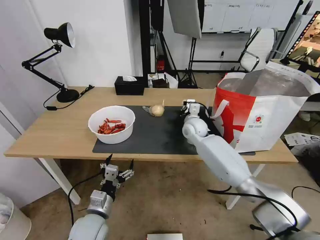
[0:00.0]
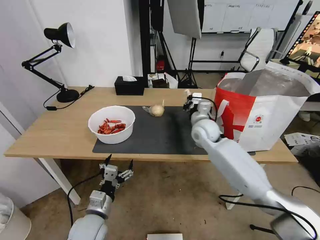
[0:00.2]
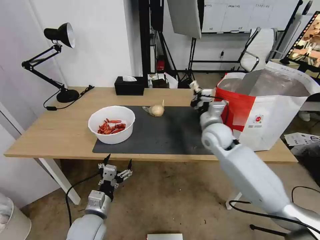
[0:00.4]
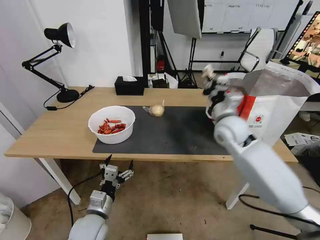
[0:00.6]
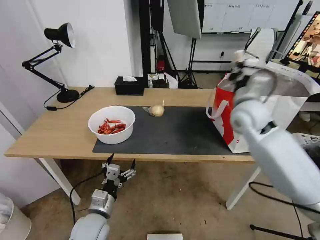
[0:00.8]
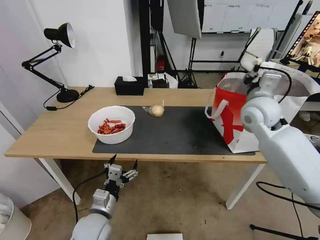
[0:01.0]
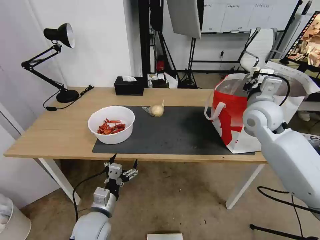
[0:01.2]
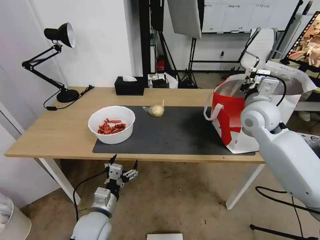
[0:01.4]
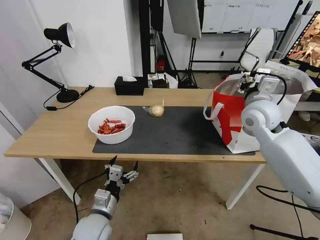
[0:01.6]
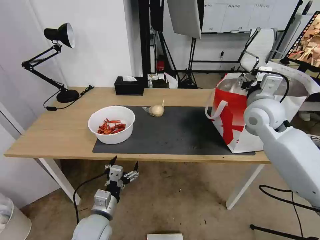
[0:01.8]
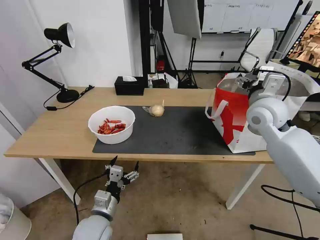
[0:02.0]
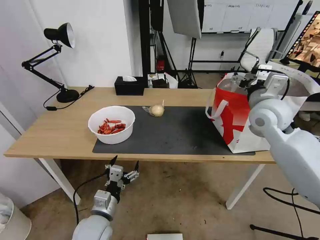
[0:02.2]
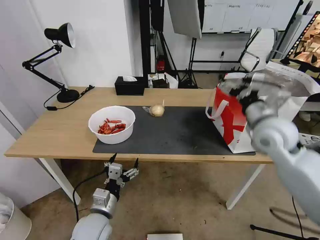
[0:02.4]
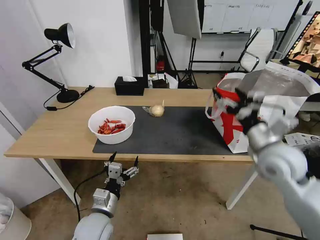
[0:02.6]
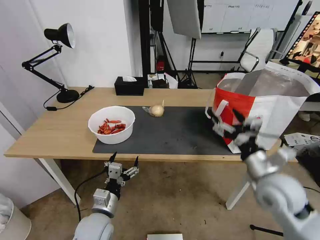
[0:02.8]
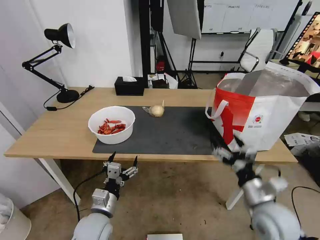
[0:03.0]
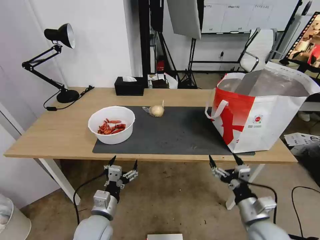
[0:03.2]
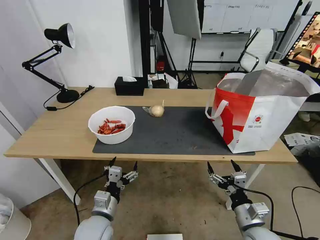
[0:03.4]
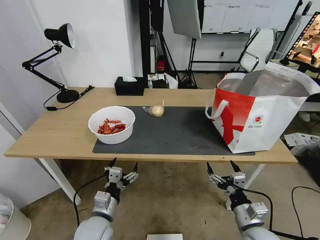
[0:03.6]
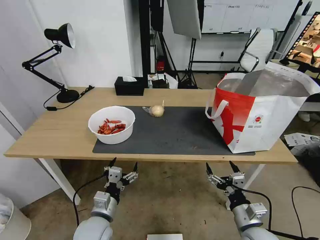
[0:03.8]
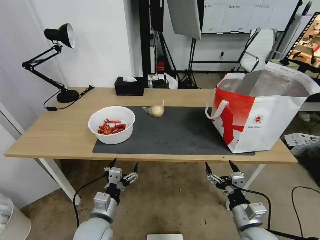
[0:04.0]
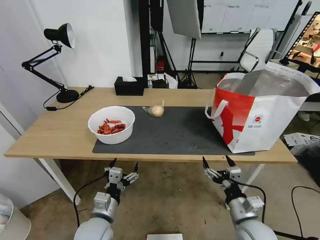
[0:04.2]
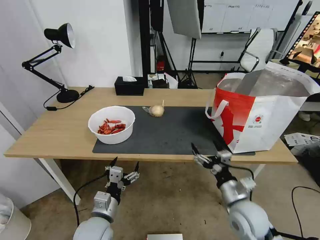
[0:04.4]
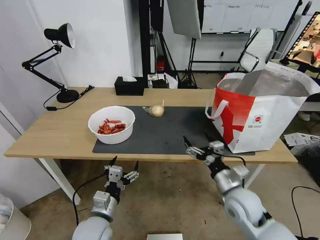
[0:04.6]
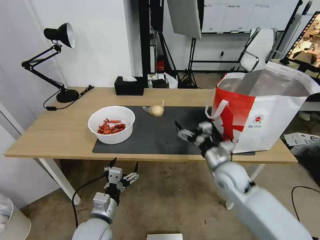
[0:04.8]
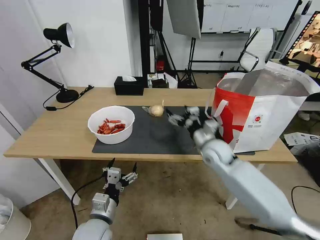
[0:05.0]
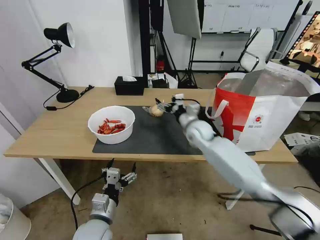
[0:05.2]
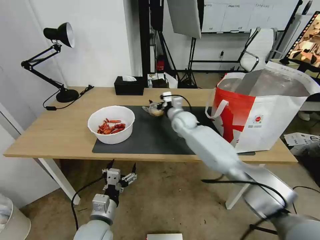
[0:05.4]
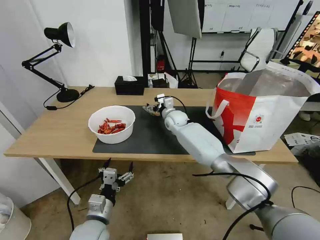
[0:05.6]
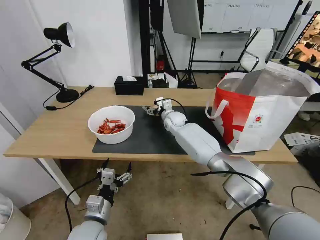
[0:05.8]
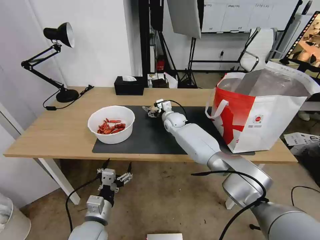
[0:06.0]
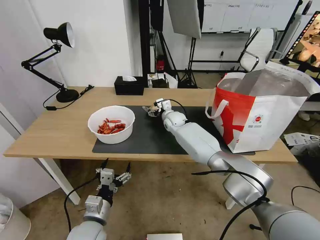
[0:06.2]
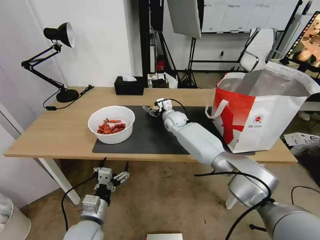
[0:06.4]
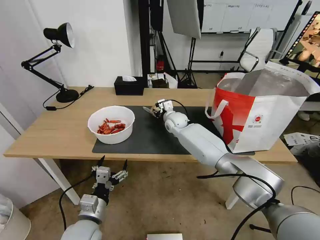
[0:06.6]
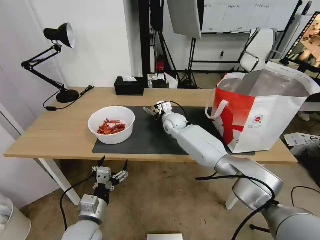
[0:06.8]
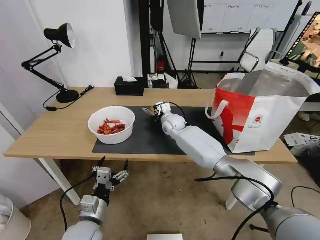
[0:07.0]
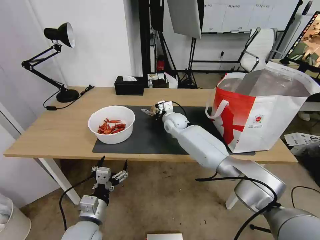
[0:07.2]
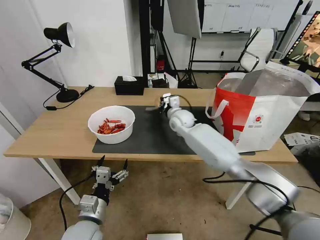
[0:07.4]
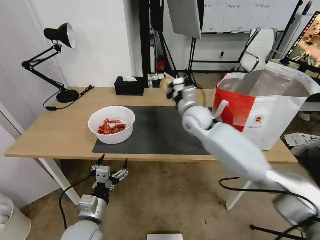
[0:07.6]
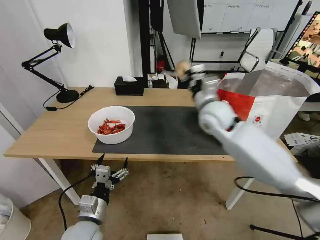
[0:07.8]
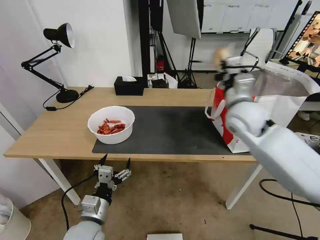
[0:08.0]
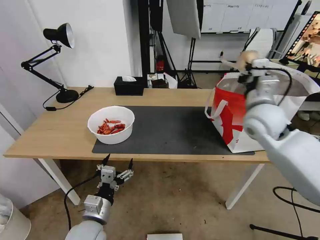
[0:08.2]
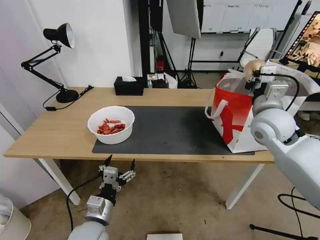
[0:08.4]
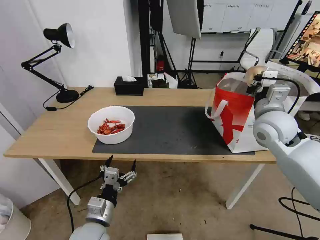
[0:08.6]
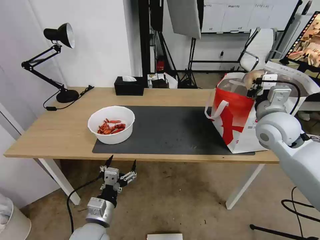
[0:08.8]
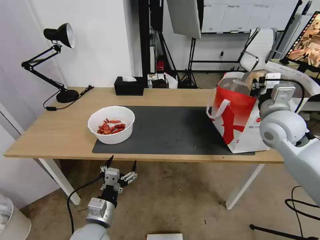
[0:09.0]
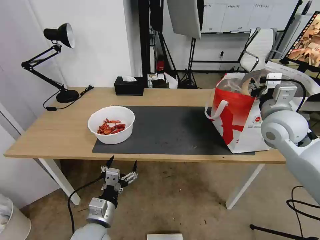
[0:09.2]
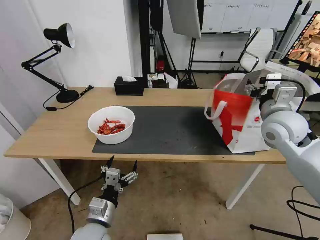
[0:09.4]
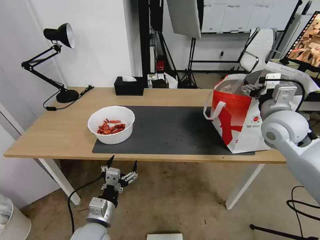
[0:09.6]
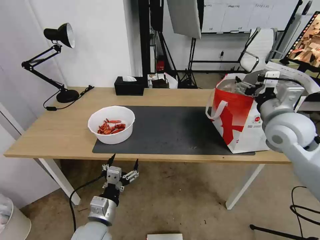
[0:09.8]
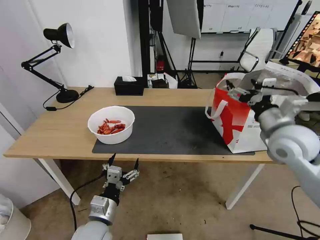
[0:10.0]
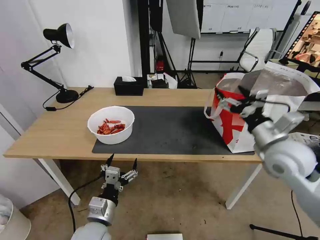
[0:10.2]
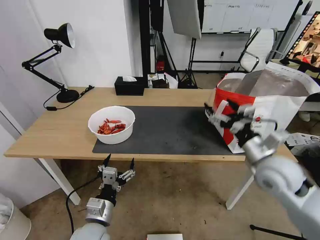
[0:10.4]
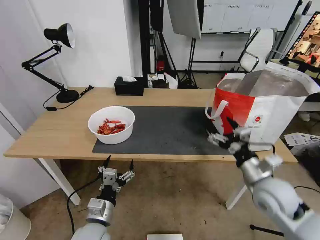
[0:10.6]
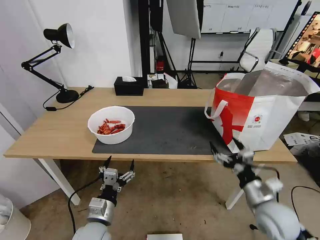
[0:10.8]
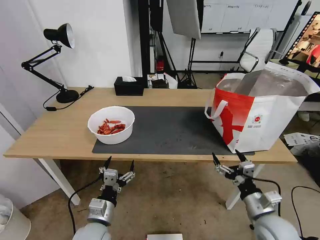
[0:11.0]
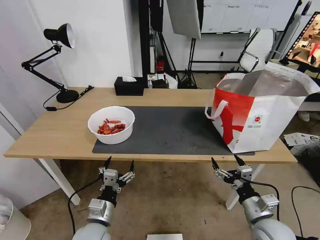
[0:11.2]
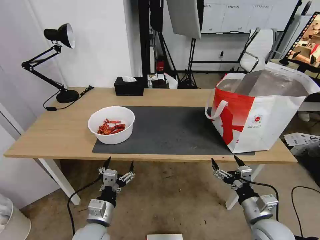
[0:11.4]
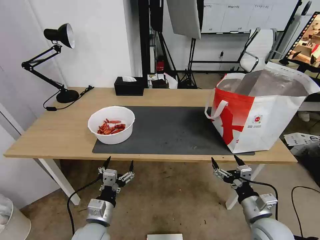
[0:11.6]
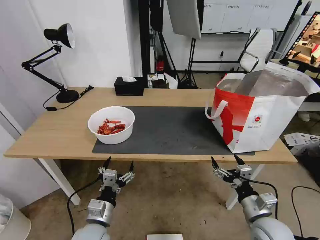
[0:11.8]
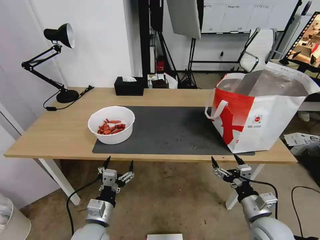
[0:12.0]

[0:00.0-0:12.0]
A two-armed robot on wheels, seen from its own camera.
Task of the whole recording: Pick up the trash from the table and place it into the takeout bag.
0:00.0 to 0:01.6: The right gripper moves upward, to the right and backward, roughly 25 cm, and opens its fingers.
0:01.6 to 0:03.0: The right gripper is displaced backward and downward by some 30 cm, and opens.
0:03.0 to 0:04.4: The right gripper ends up about 5 cm from where it was.
0:04.4 to 0:06.0: The right gripper moves forward and to the left, some 40 cm.
0:06.0 to 0:07.6: The right gripper heads upward, backward and to the right, covering some 15 cm, and closes its fingers.
0:07.6 to 0:09.0: The right gripper is displaced to the right and backward by roughly 20 cm.
0:09.0 to 0:10.4: The right gripper heads backward and downward, covering some 15 cm, and opens.
0:10.4 to 0:12.0: The right gripper travels downward and backward by about 20 cm.

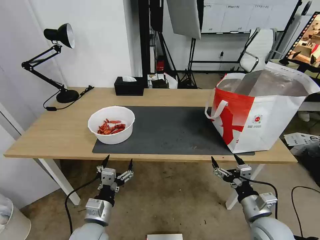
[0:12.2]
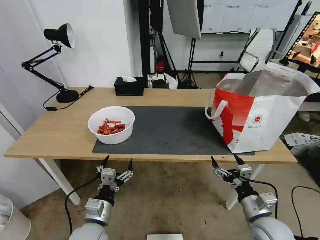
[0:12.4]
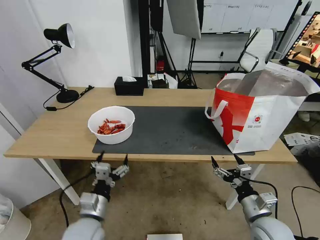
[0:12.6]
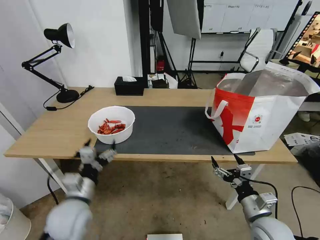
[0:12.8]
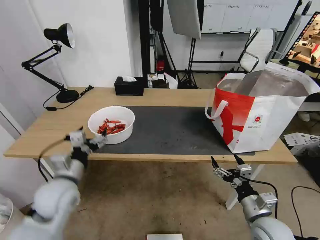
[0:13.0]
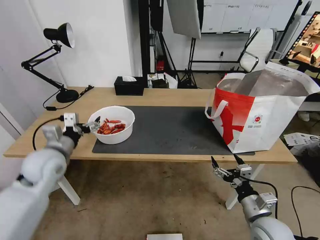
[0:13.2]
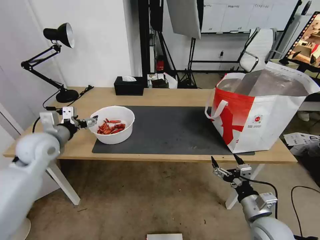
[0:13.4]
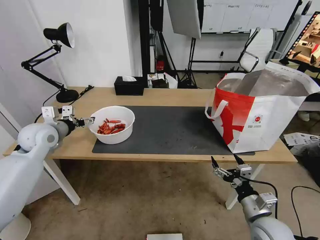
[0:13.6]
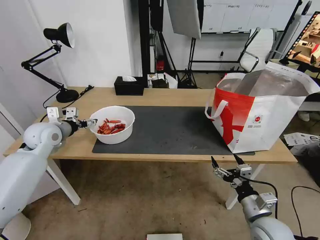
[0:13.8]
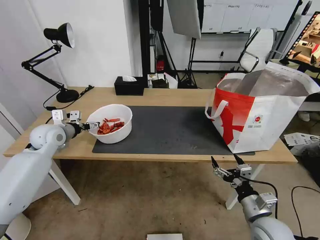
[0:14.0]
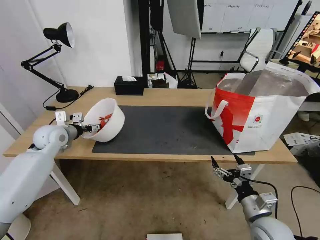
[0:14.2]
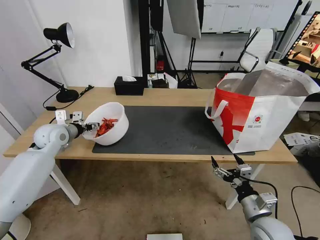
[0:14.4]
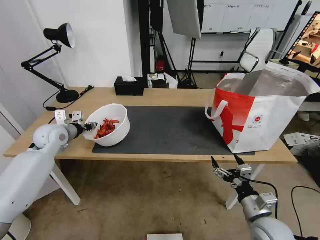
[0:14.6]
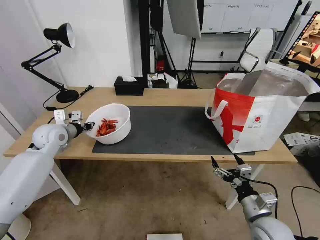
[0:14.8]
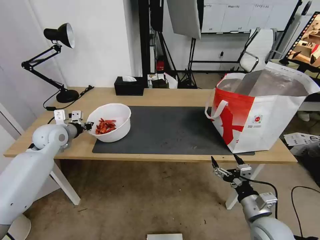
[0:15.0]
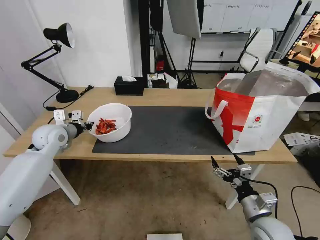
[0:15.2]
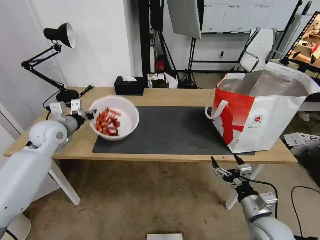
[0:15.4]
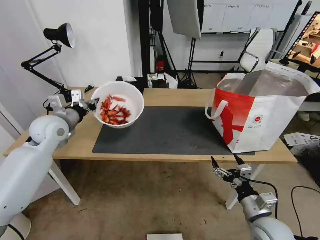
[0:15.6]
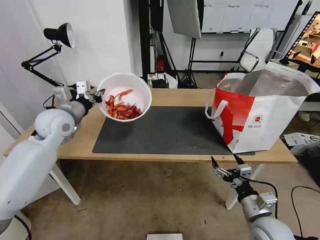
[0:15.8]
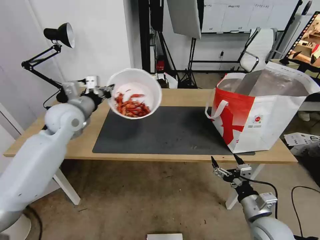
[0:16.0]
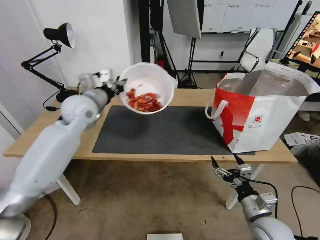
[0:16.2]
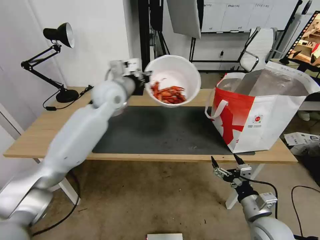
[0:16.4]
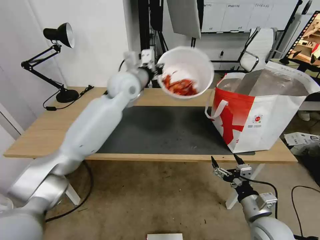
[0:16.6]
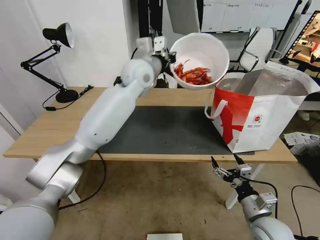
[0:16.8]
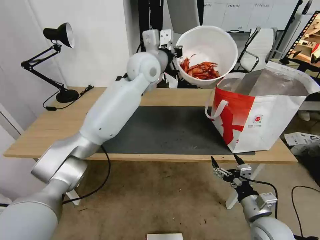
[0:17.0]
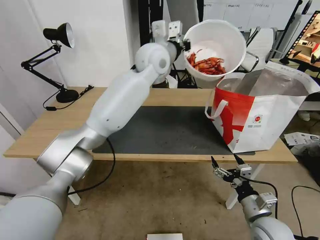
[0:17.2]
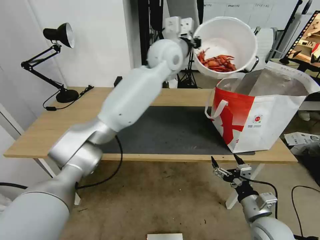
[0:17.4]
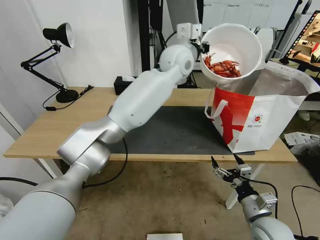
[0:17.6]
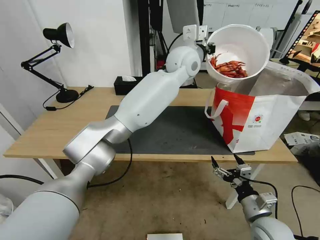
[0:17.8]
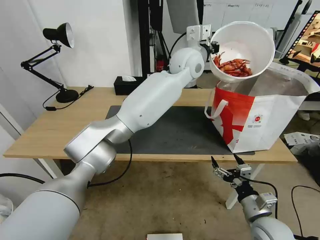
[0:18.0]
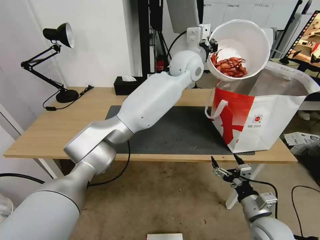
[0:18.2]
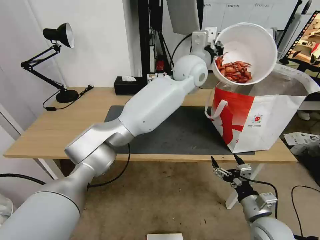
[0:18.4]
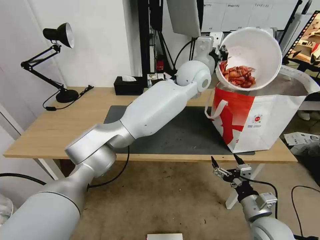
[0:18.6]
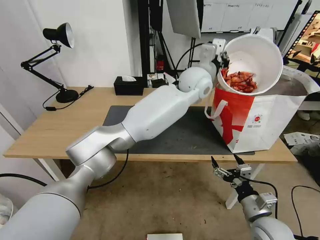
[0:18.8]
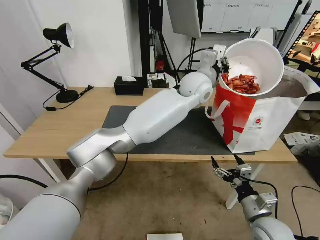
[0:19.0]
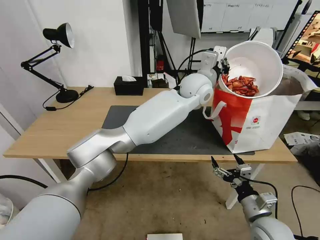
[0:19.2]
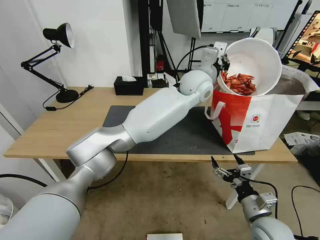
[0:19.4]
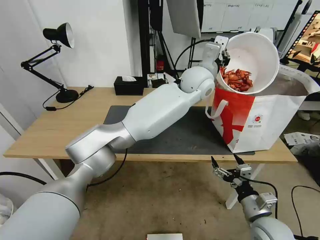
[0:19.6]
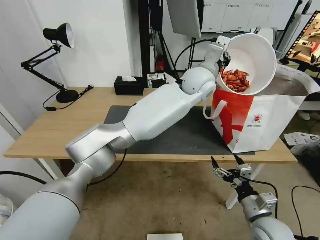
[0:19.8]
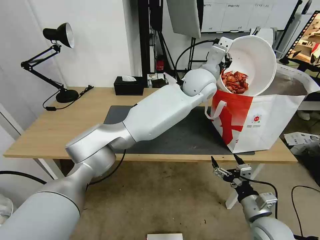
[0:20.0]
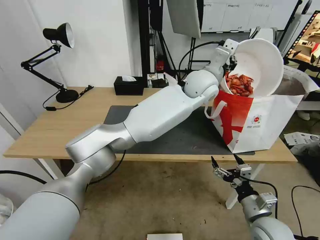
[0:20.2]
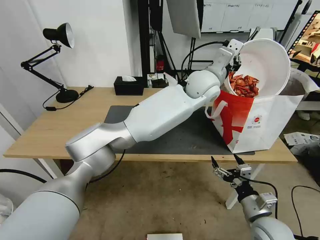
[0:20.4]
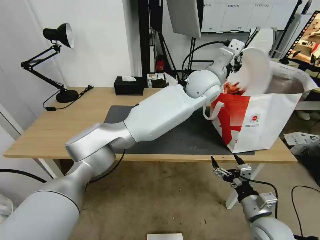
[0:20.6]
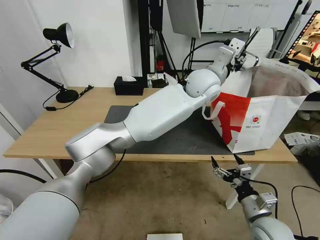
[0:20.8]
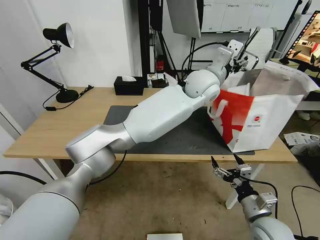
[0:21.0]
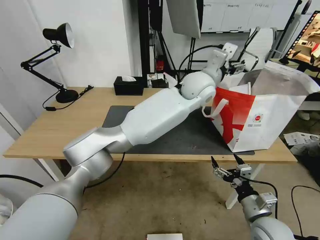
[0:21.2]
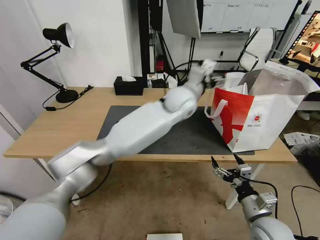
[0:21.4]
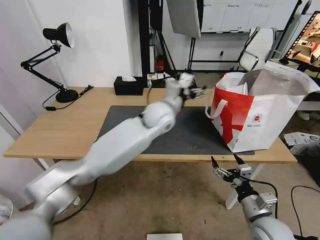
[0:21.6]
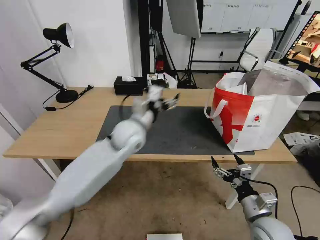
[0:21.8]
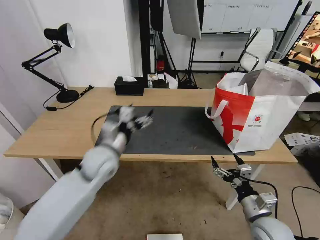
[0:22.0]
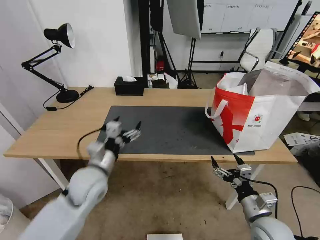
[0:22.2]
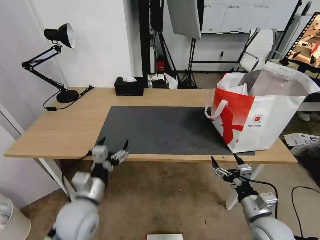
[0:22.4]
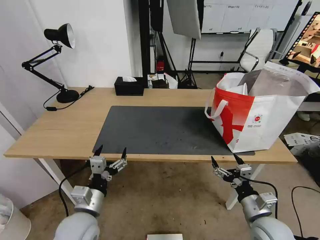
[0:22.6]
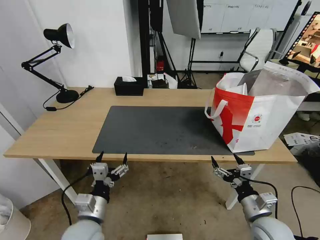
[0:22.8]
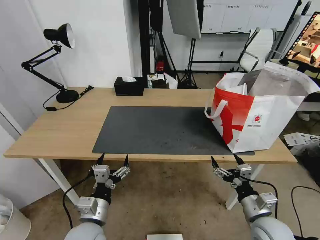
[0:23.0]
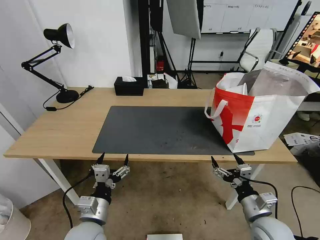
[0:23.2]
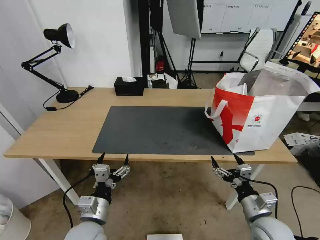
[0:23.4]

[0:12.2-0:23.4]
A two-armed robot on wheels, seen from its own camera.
Task of the whole recording: Pick up the trash from the table and place it into the takeout bag.
0:12.2 to 0:13.8: The left gripper is displaced forward, to the left and upward by about 35 cm.
0:13.8 to 0:15.4: The left gripper closes.
0:15.4 to 0:17.0: The left gripper shifts some 35 cm to the right and upward.
0:17.0 to 0:18.6: The left gripper heads to the right, covering about 15 cm.
0:18.6 to 0:20.2: The grippers move only a little.
0:20.2 to 0:21.8: The left gripper is displaced to the left and downward by about 20 cm, and opens its fingers.
0:21.8 to 0:23.4: The left gripper shifts roughly 35 cm backward, downward and to the left.
